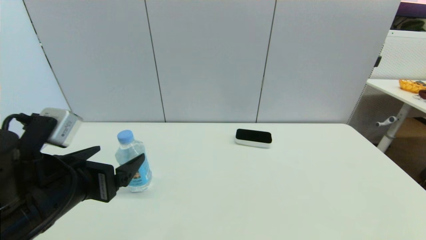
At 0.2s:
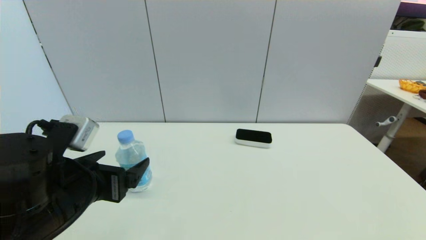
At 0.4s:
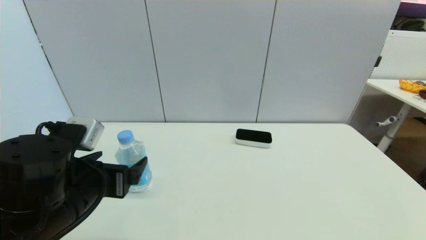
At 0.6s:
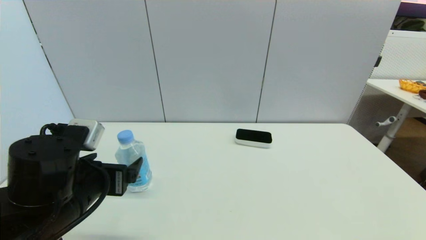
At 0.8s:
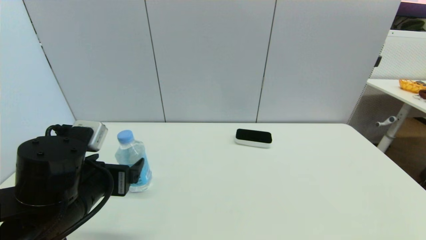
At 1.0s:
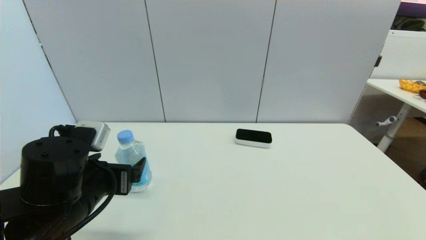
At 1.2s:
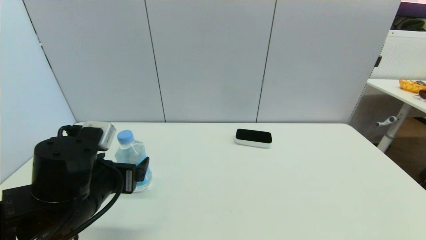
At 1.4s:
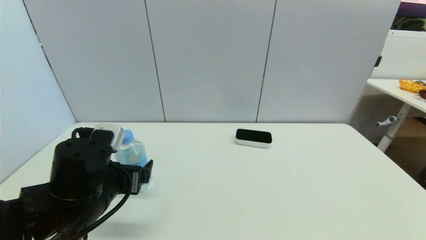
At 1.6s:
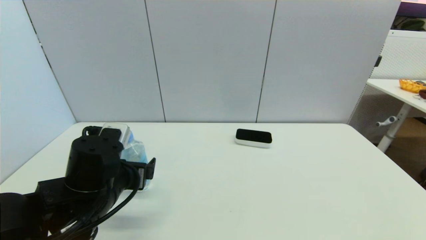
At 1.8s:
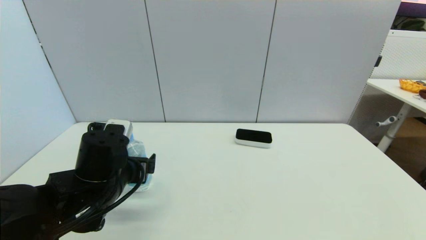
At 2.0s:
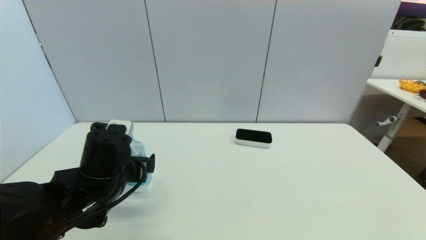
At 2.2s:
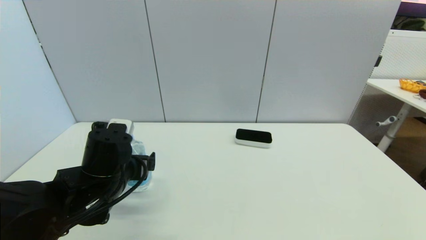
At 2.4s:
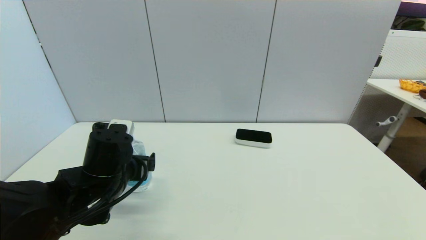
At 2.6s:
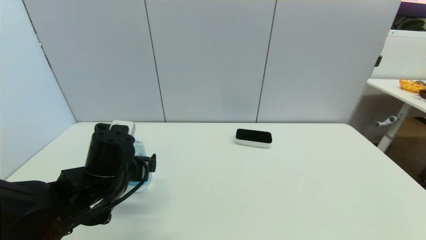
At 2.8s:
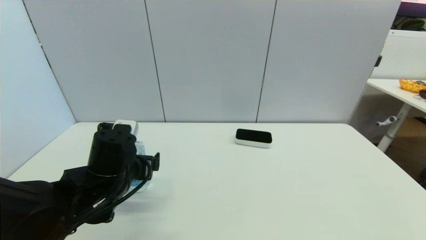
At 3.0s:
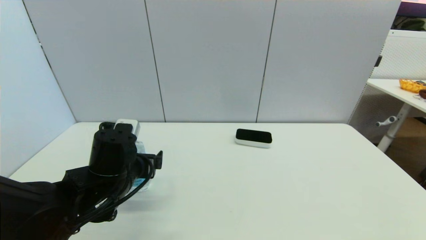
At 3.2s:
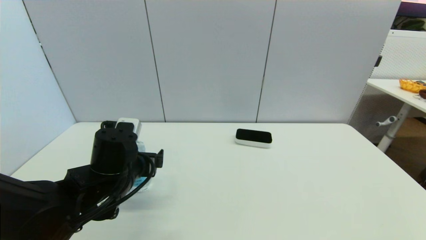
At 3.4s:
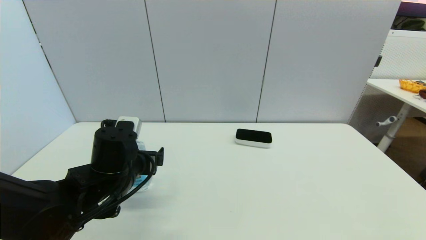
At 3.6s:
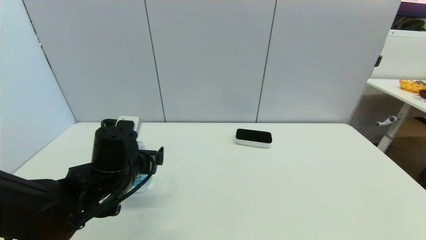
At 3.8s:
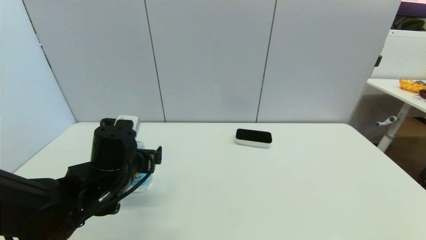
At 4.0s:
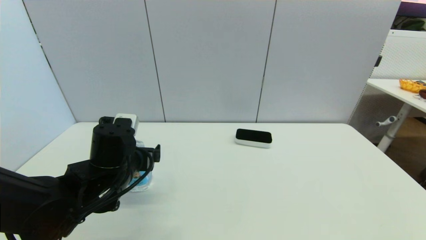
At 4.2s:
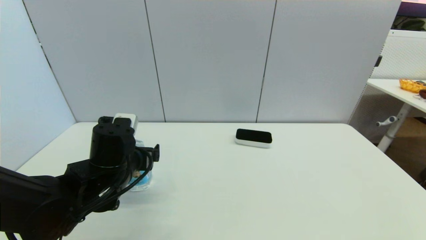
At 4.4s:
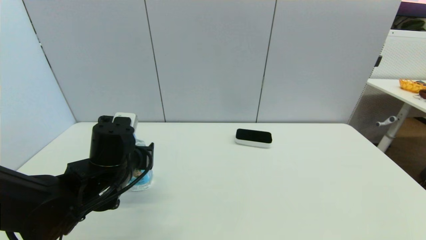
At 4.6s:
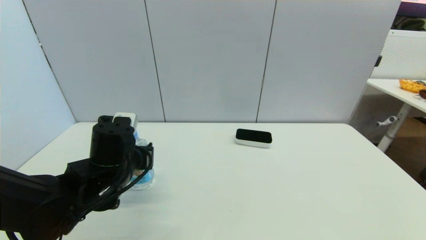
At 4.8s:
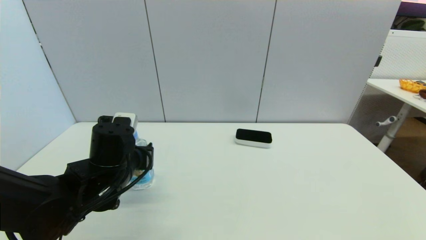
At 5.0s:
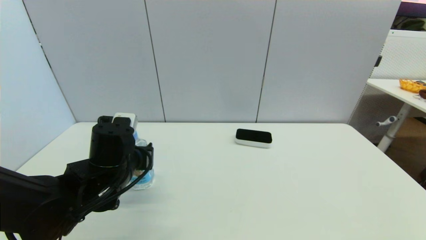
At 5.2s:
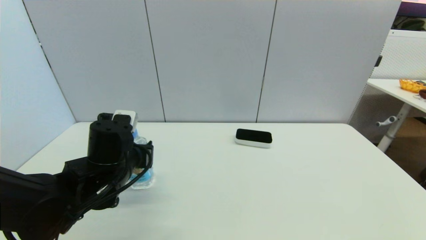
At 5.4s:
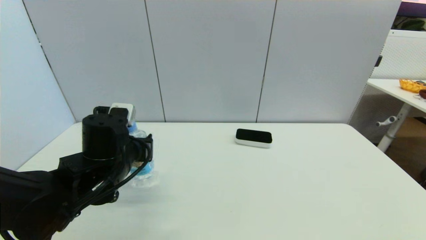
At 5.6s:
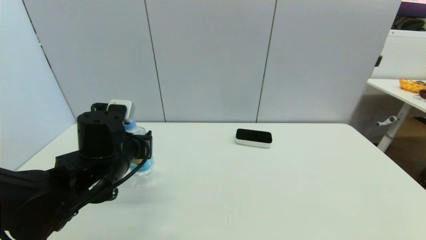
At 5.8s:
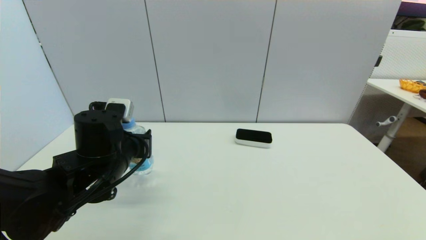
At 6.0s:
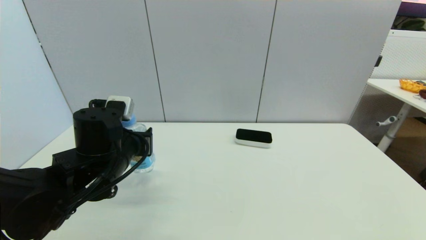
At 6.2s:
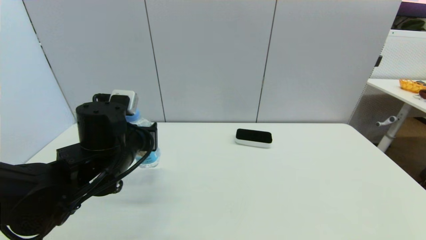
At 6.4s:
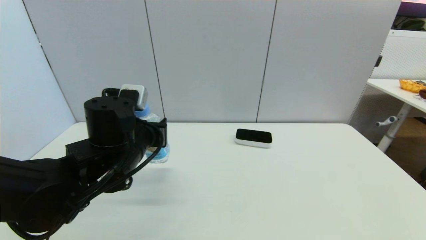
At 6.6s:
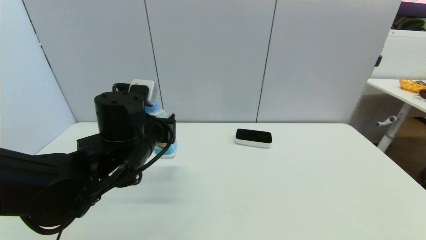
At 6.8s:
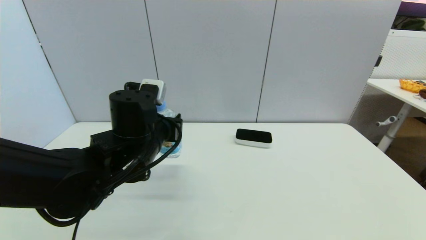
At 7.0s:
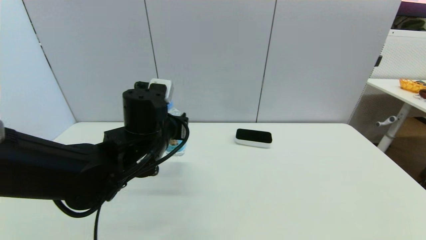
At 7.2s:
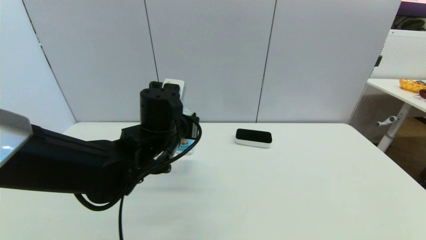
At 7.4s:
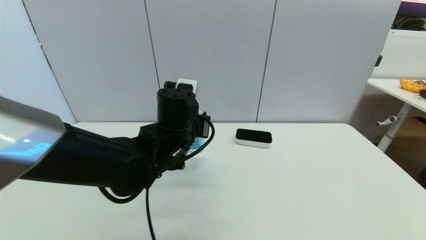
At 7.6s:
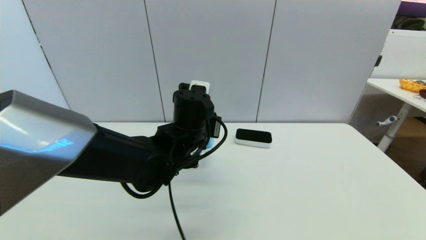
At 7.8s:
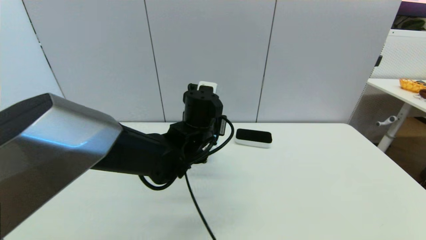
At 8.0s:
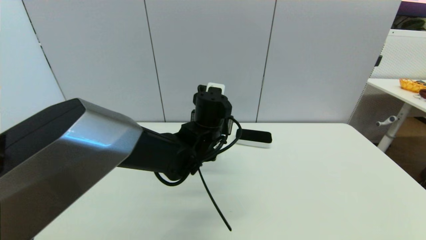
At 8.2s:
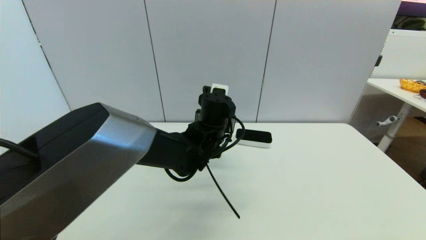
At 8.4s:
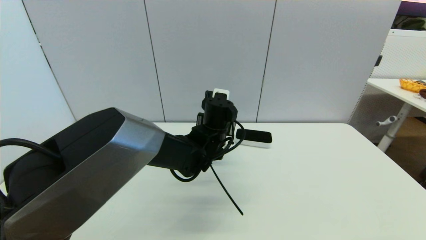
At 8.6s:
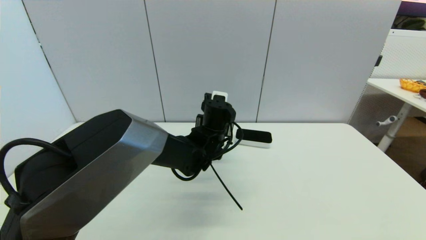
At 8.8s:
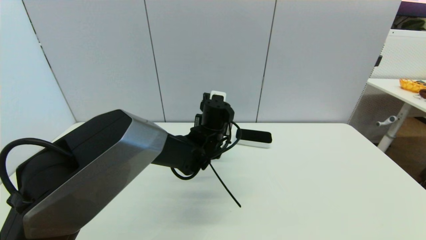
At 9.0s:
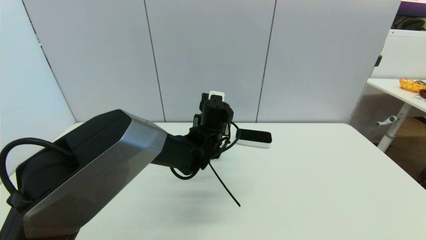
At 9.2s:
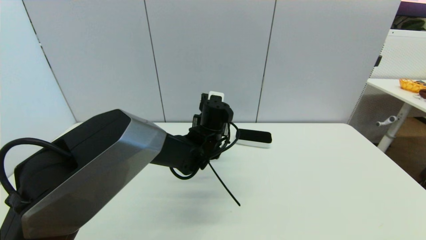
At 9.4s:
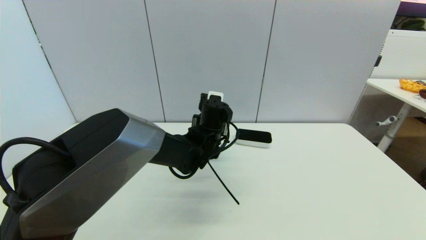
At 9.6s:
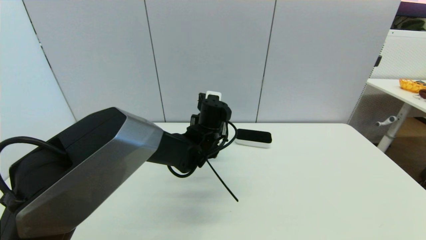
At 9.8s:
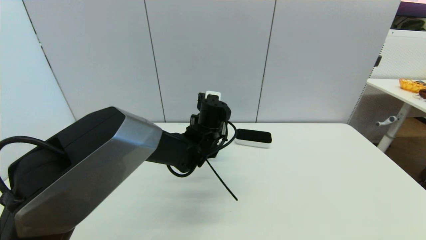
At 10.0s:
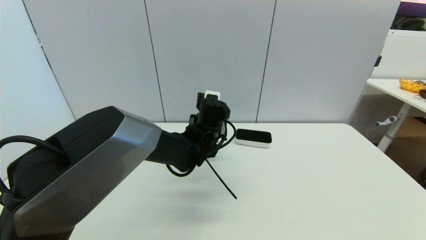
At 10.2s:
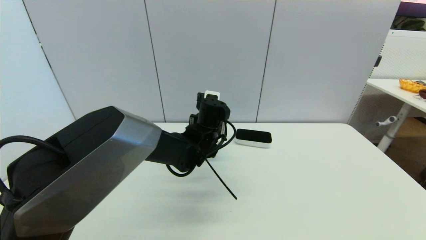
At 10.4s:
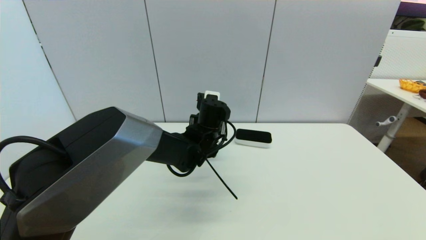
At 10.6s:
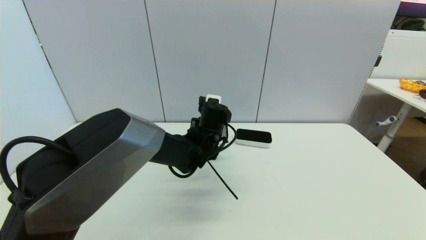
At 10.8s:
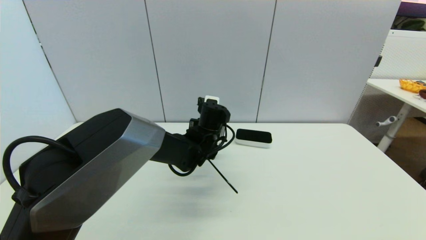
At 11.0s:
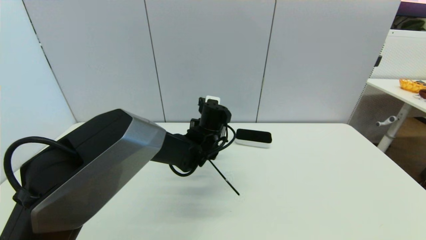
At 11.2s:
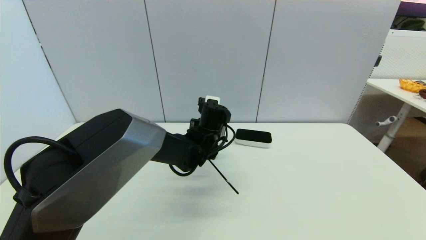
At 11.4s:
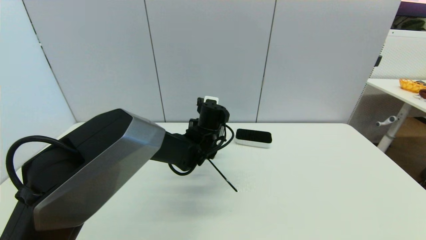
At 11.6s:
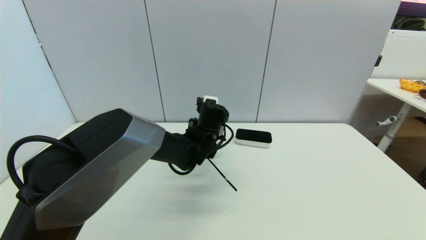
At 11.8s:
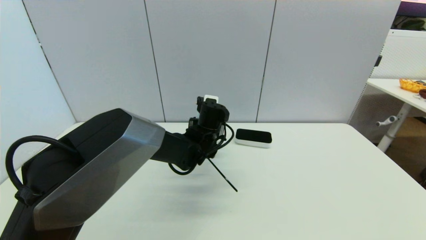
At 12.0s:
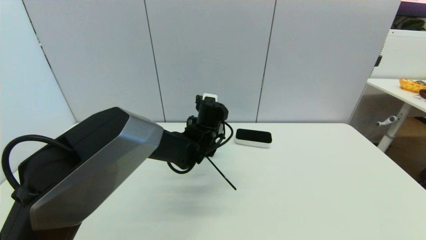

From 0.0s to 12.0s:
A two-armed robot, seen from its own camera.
Step, from 0.0s to 5.2s: Grasp the soda water with left gripper.
Step, from 5.4s to 11.0s: Place the soda water on the table with left gripper.
From 0.0s to 1.6s: The left gripper travels forward and downward by roughly 10 cm.
From 1.6s to 3.0s: The grippers make only small movements.
From 3.0s to 4.4s: The left gripper closes.
From 4.4s to 6.0s: The grippers make only small movements.
From 6.0s to 7.6s: The left gripper travels to the right and forward by approximately 15 cm.
From 7.6s to 9.0s: The left gripper travels forward and downward by about 10 cm.
From 9.0s to 10.4s: Both grippers stay put.
From 10.4s to 12.0s: The left gripper opens.

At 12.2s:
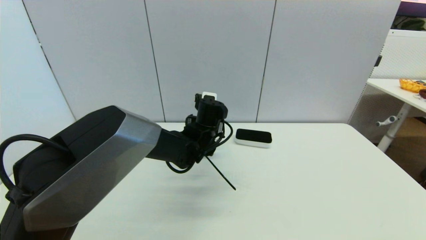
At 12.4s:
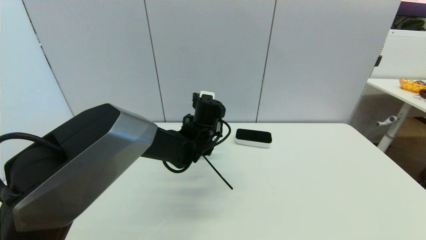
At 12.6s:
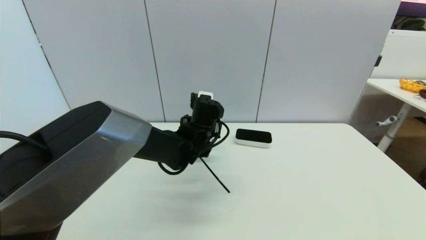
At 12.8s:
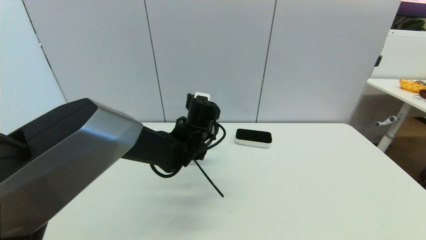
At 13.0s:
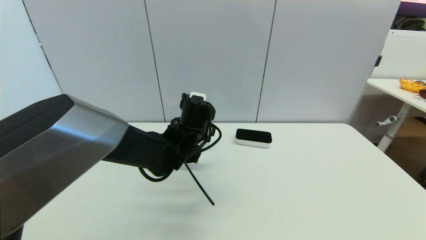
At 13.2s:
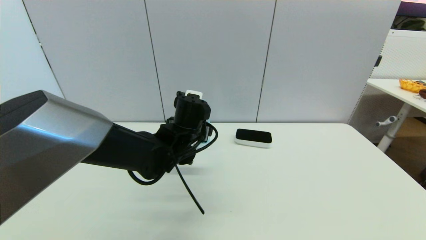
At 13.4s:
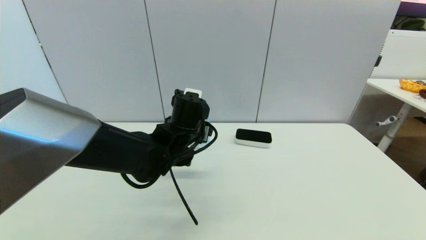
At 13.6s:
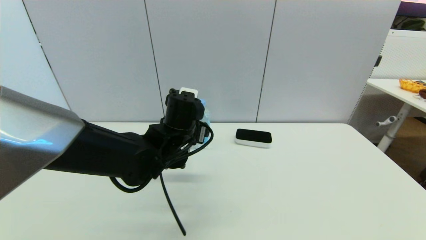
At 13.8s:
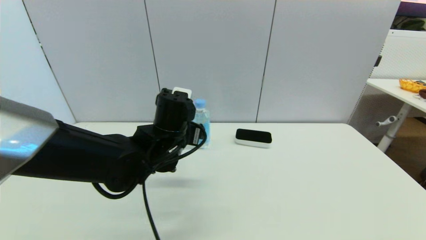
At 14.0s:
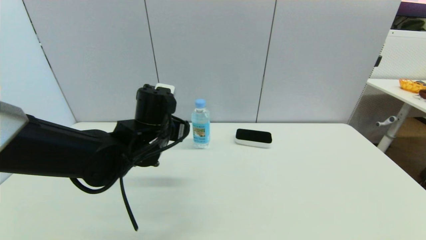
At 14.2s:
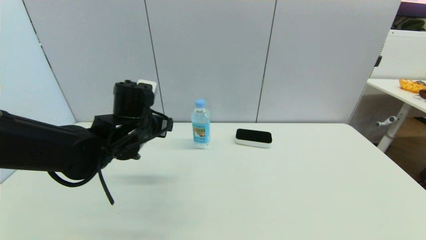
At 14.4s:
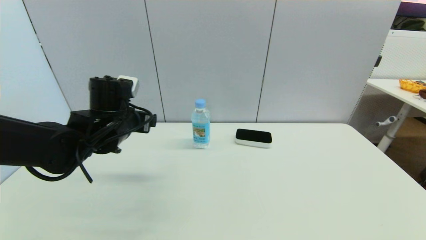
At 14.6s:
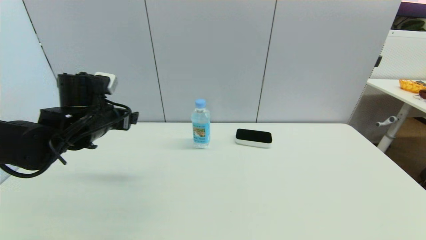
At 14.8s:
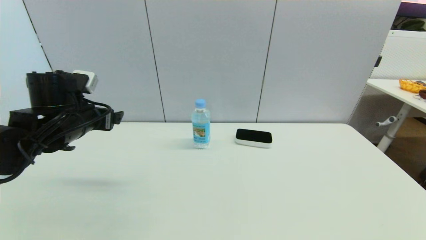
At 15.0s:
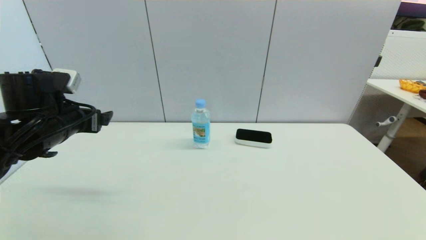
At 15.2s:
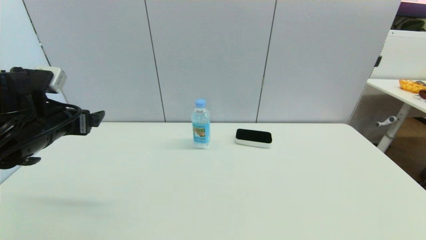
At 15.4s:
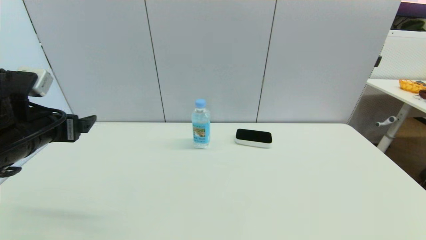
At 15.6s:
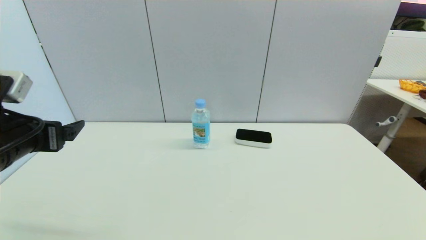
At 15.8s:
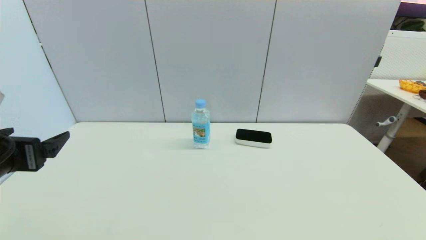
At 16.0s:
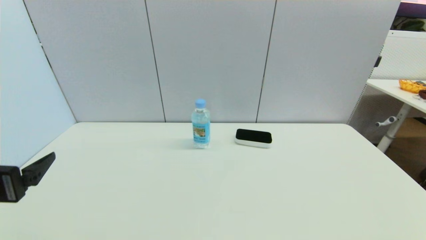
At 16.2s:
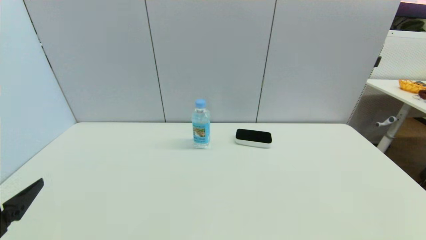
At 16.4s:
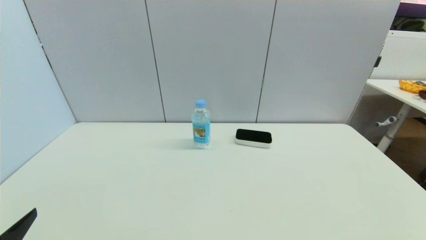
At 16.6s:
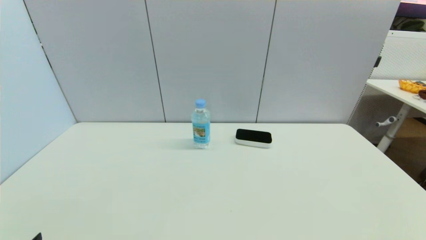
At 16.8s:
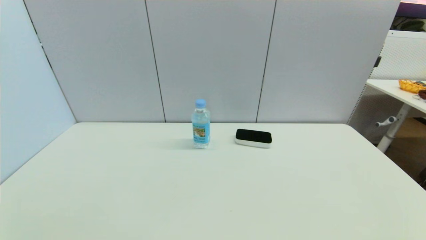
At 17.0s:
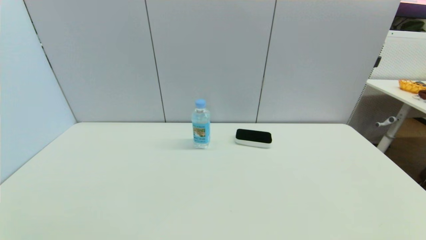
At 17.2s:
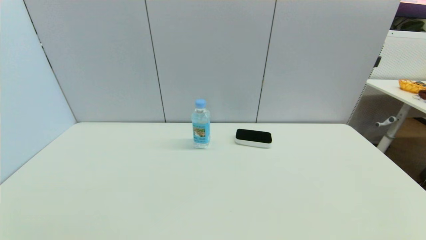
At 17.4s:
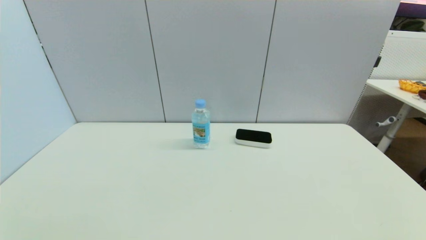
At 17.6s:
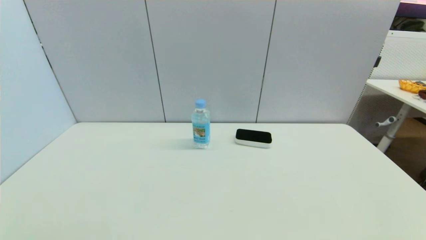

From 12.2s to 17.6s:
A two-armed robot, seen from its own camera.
From 12.2s to 13.6s: The left gripper travels backward and to the left by approximately 10 cm.
From 13.6s to 15.0s: The left gripper heads to the left, covering some 20 cm.
From 15.0s to 16.2s: The left gripper shifts some 20 cm backward.
From 16.2s to 17.6s: The left gripper moves downward and backward, approximately 10 cm.
